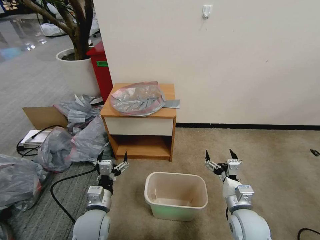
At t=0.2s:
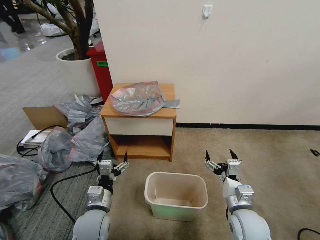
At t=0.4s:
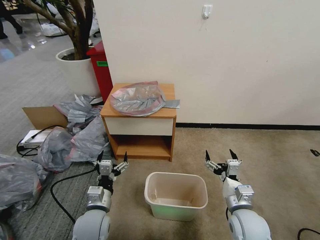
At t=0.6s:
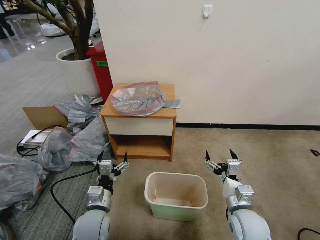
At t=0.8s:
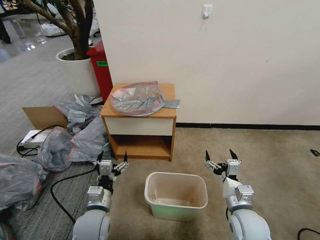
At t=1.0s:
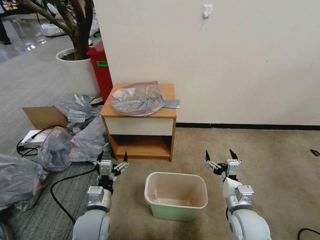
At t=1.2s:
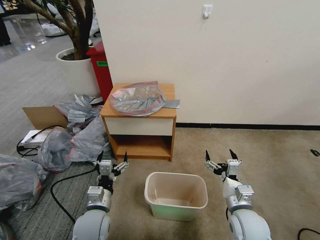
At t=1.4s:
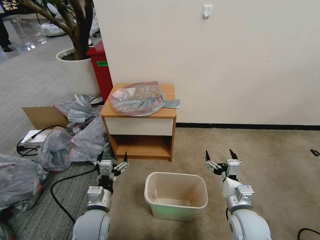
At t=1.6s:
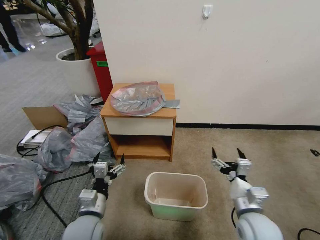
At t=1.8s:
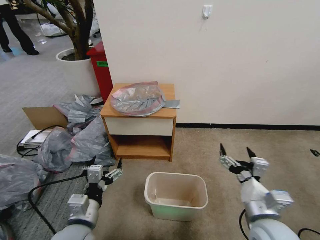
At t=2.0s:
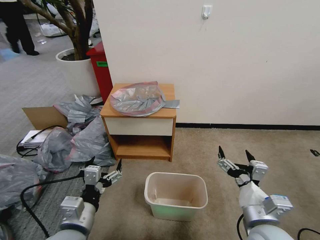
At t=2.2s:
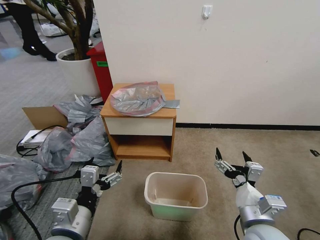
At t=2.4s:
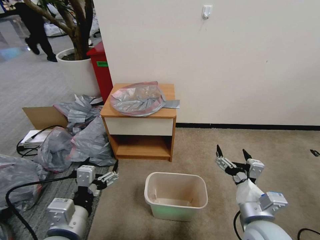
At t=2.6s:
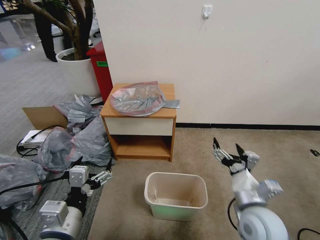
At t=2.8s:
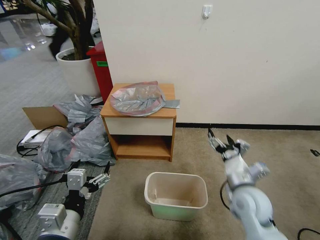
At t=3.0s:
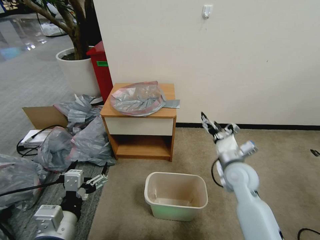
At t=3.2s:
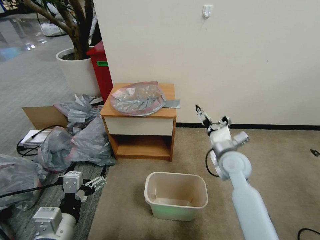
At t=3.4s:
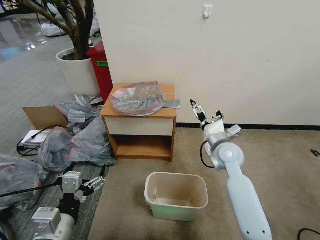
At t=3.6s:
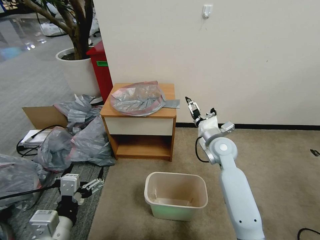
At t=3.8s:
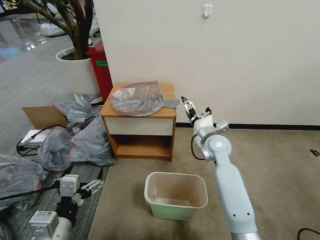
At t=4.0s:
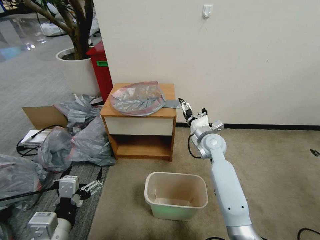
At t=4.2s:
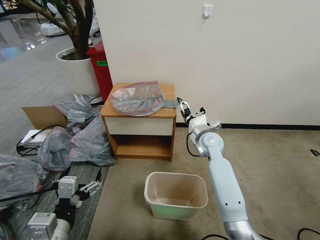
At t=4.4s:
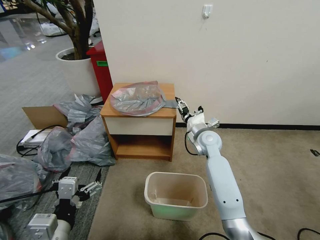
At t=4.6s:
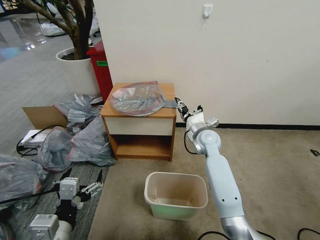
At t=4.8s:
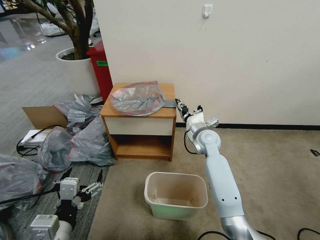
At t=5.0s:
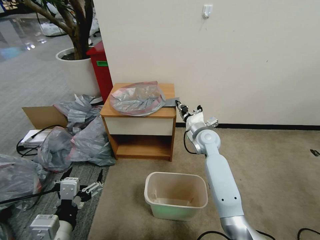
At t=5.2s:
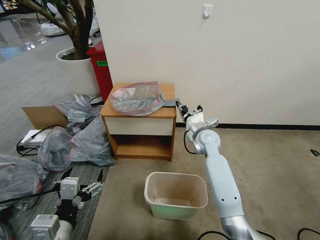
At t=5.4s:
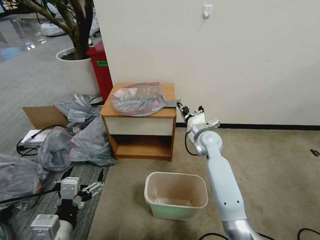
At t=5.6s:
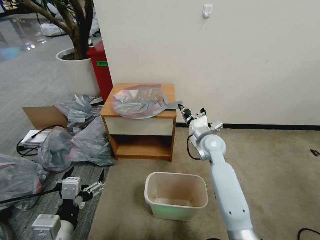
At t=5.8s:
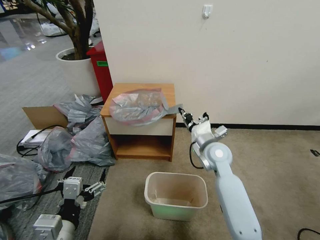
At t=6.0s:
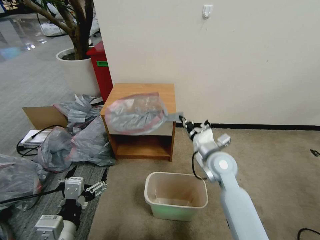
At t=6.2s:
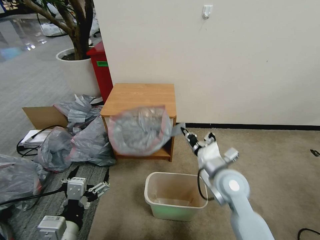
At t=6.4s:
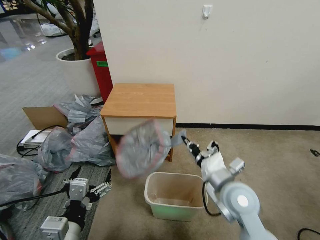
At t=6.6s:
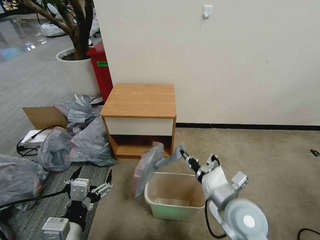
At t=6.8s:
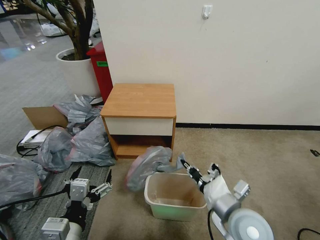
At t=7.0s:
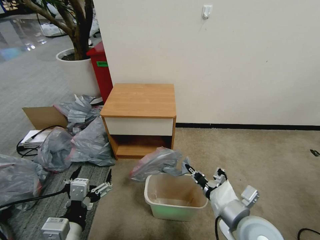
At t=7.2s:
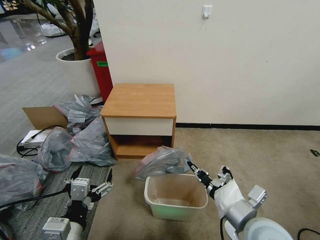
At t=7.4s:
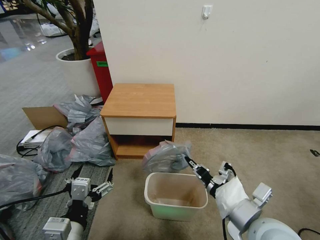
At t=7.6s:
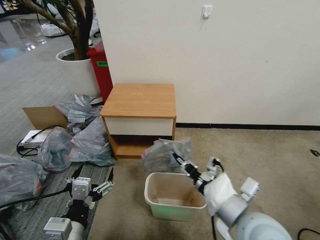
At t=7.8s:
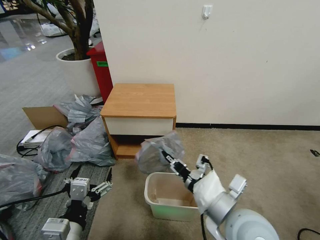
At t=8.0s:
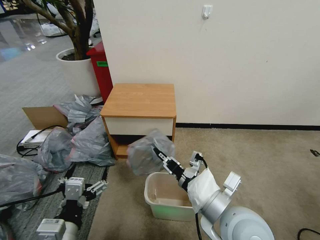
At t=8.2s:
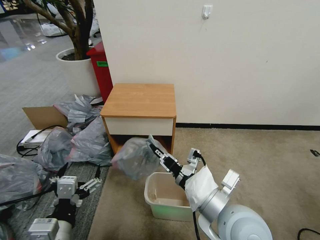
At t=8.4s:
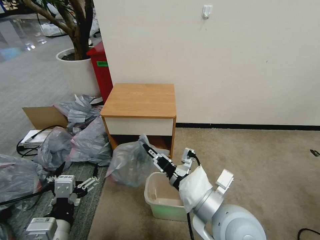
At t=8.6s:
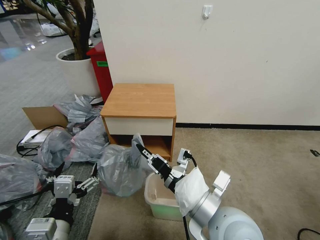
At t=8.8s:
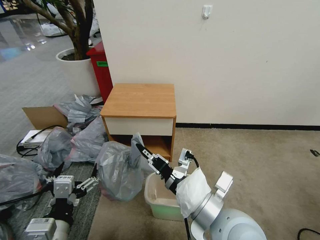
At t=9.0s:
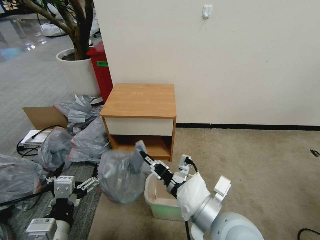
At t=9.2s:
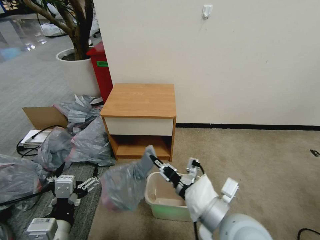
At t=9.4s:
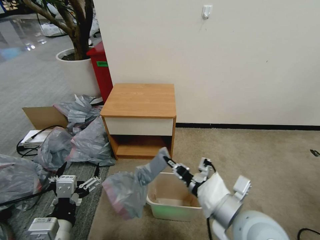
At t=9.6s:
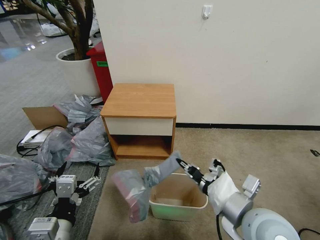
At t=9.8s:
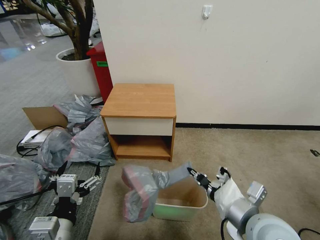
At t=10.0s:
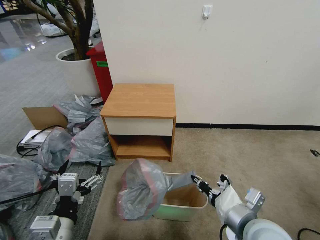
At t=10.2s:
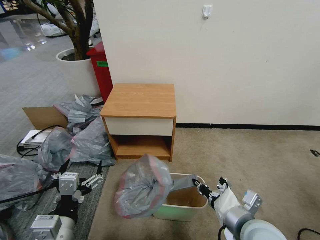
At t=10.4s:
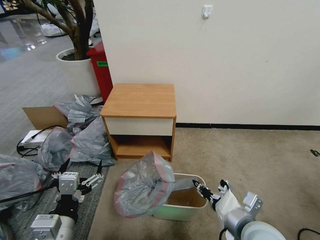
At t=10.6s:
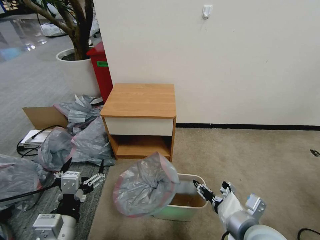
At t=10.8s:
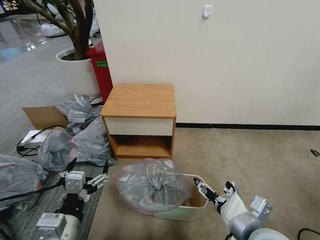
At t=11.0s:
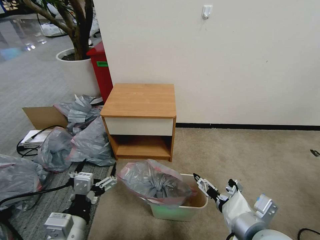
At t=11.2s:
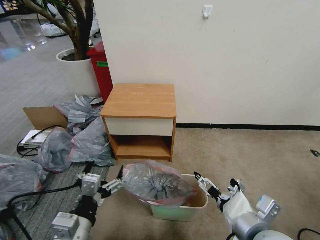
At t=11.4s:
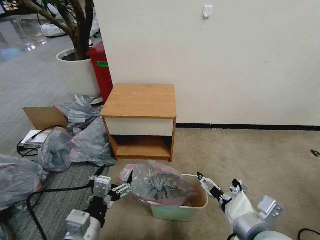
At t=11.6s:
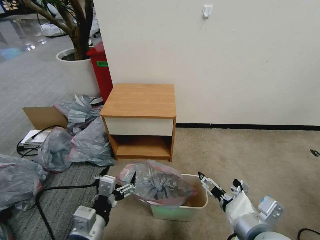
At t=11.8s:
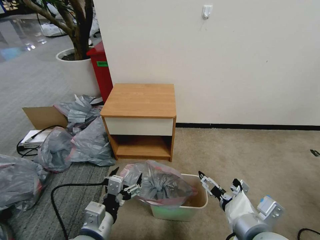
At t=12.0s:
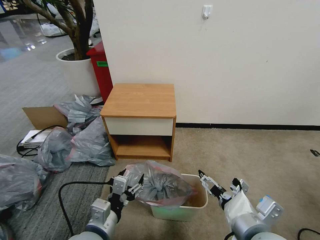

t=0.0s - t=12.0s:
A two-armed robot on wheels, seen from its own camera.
Task of the whole recording: Pick up the garbage bag from the table and place it over the trash can.
t=1.6s - t=3.0s: The left gripper goes some 15 cm upward and backward. The right gripper is displaced forward and upward by some 15 cm.
t=3.0s - t=4.4s: The right gripper travels forward and to the left by approximately 15 cm.
t=4.4s - t=6.0s: The right gripper shifts roughly 15 cm backward, and closes up.
t=6.0s - t=7.6s: The right gripper moves backward, approximately 20 cm.
t=7.6s - t=9.0s: The right gripper is displaced to the left by about 5 cm.
t=9.0s - t=10.4s: The right gripper shifts some 10 cm to the right and downward.
t=10.4s - t=12.0s: The left gripper goes about 5 cm to the right. The right gripper shifts by roughly 5 cm, and opens its fingers.

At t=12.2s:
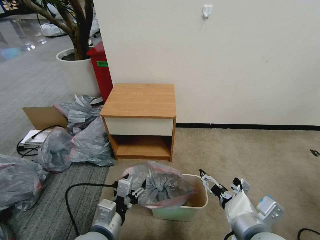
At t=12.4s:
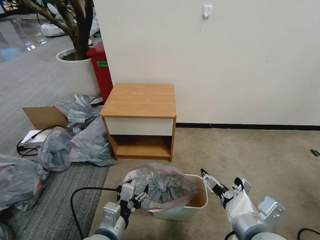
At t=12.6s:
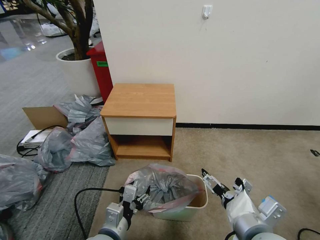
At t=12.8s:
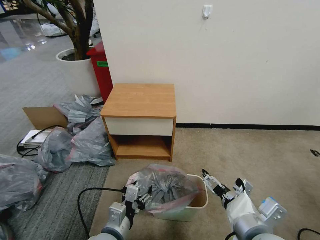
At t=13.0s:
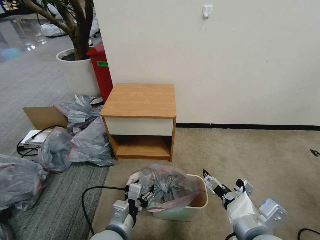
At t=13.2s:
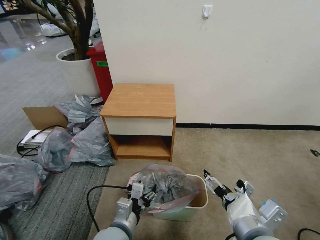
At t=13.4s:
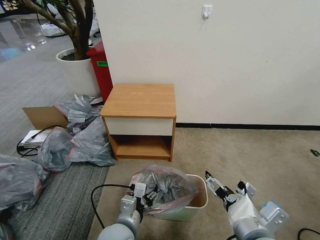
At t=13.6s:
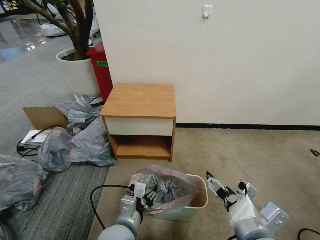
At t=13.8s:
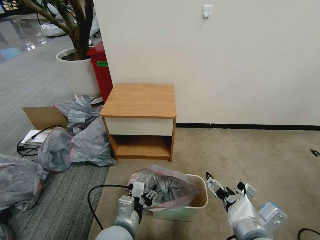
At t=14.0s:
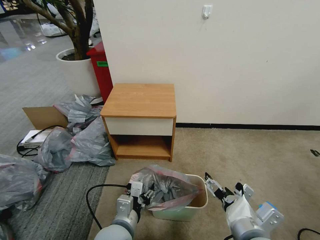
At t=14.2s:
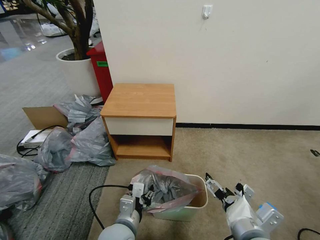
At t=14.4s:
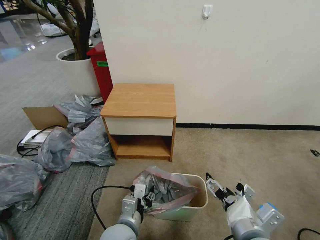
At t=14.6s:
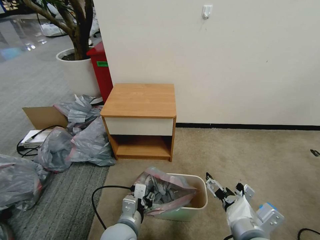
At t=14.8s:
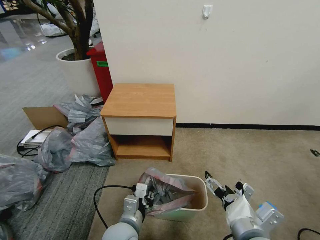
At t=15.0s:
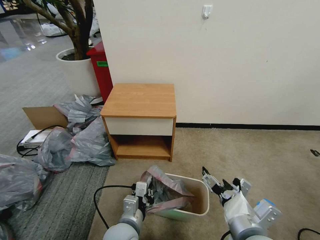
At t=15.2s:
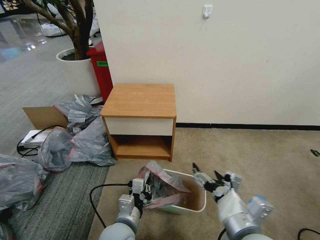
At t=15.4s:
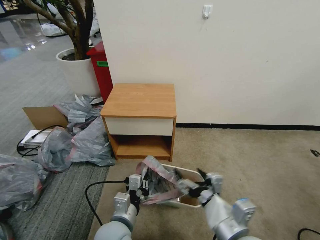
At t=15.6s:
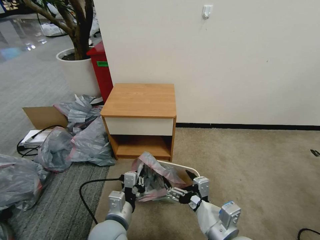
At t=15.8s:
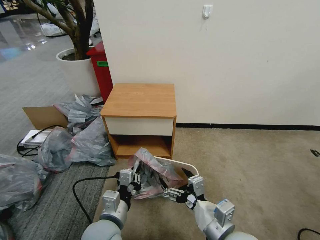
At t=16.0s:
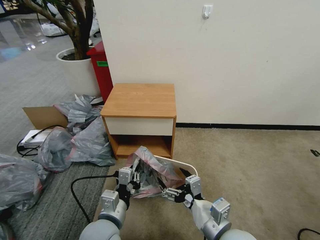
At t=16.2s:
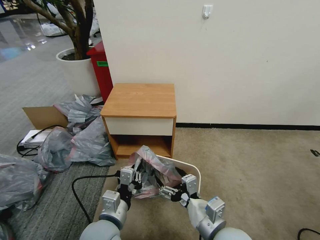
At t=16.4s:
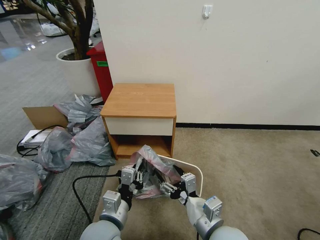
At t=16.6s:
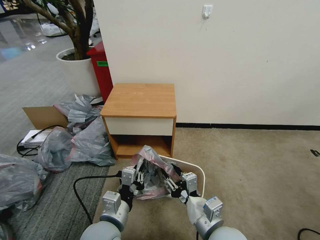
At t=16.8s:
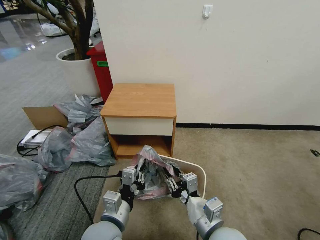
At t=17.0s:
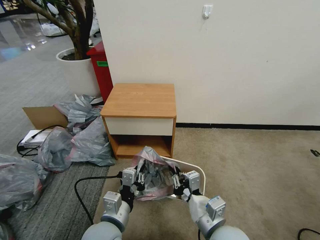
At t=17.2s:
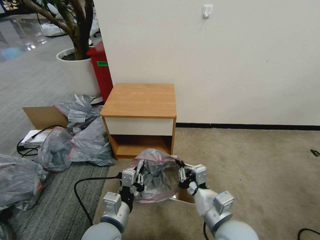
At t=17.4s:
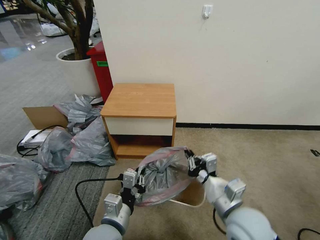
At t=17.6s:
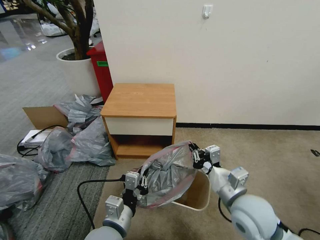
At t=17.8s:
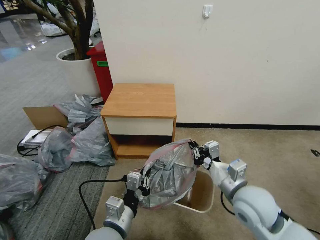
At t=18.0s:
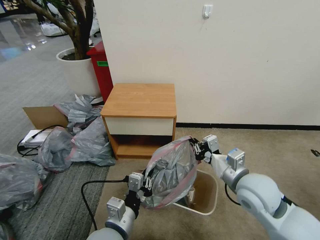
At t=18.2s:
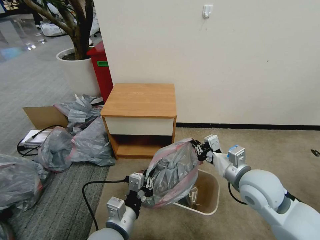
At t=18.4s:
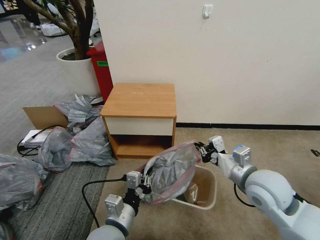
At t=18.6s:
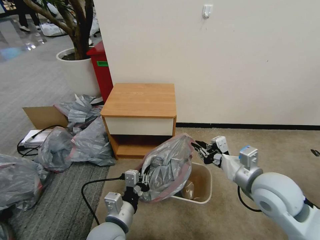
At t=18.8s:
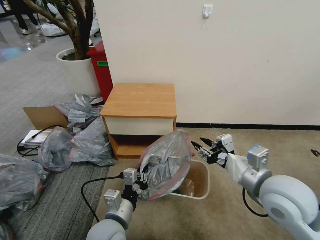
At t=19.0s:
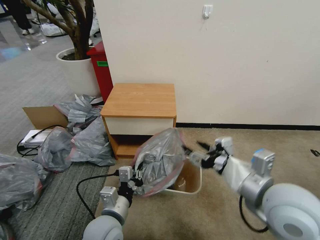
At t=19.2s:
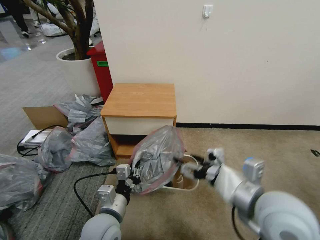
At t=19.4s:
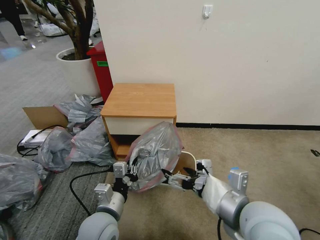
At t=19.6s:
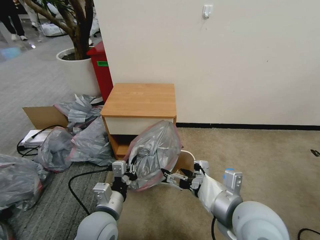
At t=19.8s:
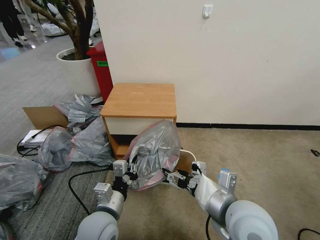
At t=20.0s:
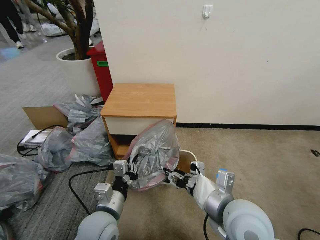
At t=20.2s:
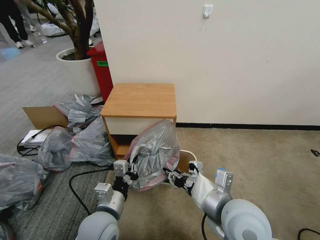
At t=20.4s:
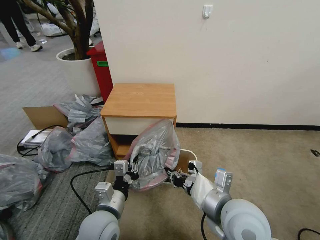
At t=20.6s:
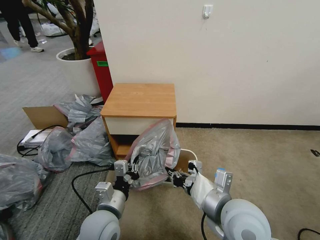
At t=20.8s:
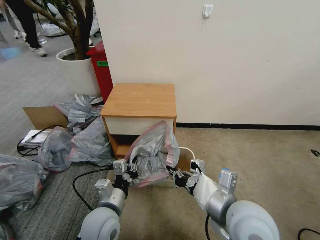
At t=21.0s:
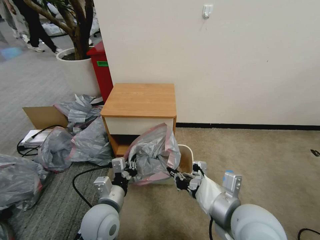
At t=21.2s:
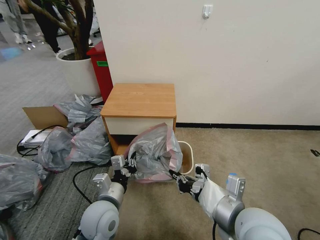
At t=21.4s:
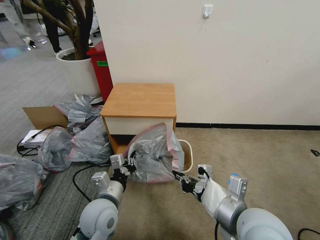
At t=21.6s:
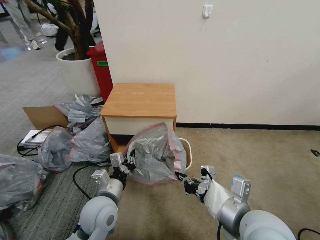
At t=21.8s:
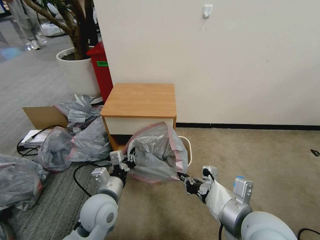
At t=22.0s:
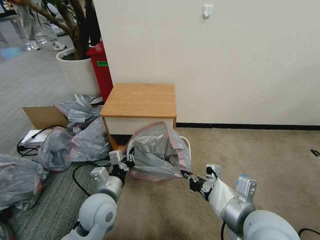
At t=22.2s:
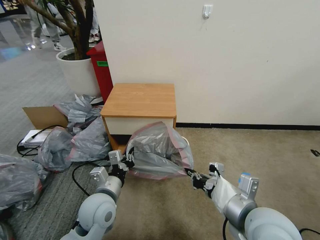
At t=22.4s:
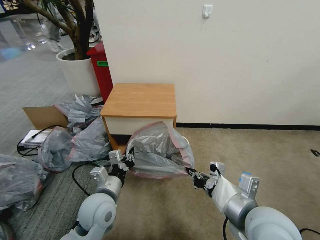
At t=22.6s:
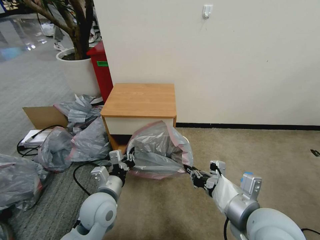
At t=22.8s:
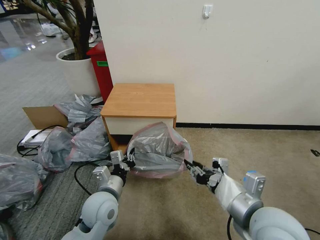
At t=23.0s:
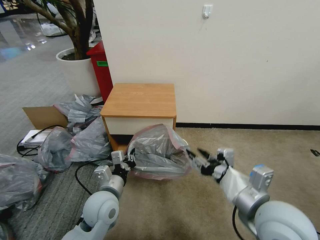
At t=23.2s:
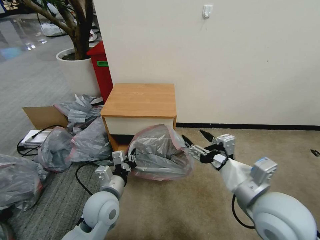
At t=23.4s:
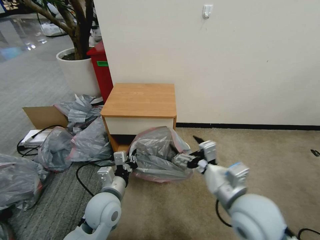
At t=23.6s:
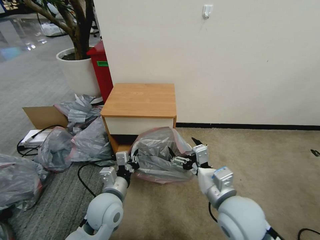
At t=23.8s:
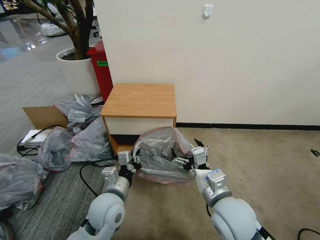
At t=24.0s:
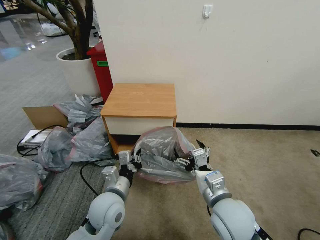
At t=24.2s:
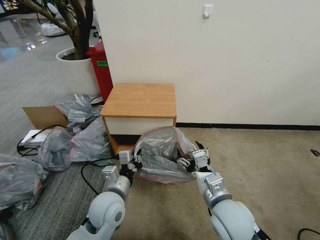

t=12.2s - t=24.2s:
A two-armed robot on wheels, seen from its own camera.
Task of the whole recording: Pick up the garbage bag from the table and place it over the trash can.
t=12.2s - t=13.8s: The left gripper shifts by about 5 cm.
t=13.8s - t=15.2s: The left gripper closes up.
t=15.2s - t=16.6s: The right gripper is displaced downward by approximately 5 cm, and closes; the left gripper ends up about 5 cm from where it was.
t=16.6s - t=18.2s: The right gripper goes about 15 cm forward, to the right and upward, and closes.
t=18.2s - t=19.8s: The right gripper goes roughly 10 cm backward and to the left, and opens.
t=19.8s - t=21.2s: The right gripper closes up.
t=21.2s - t=22.6s: The grippers move only a little.
t=22.6s - t=24.2s: The right gripper goes some 10 cm downward, and opens.
